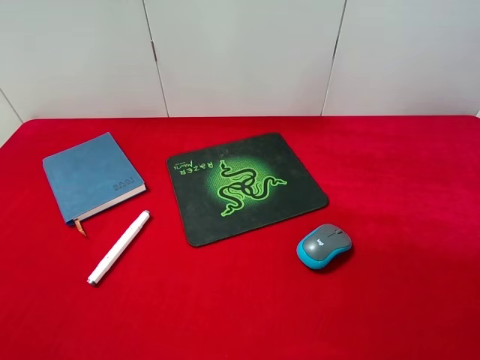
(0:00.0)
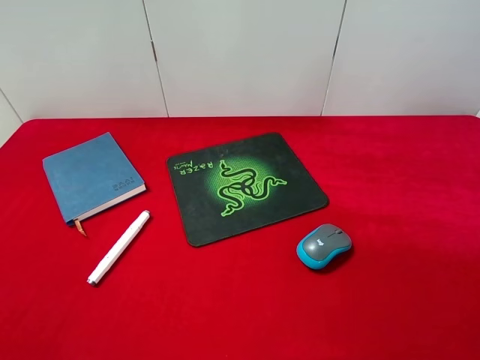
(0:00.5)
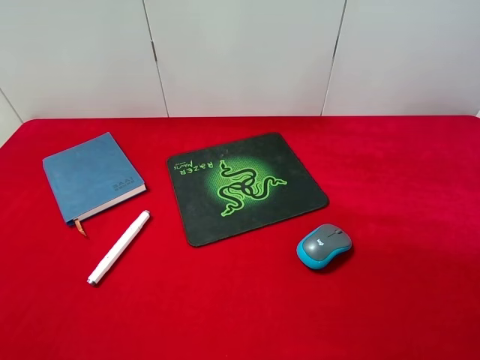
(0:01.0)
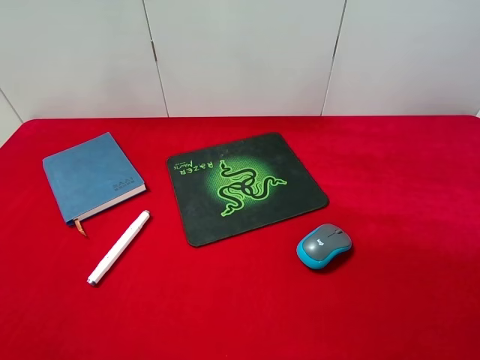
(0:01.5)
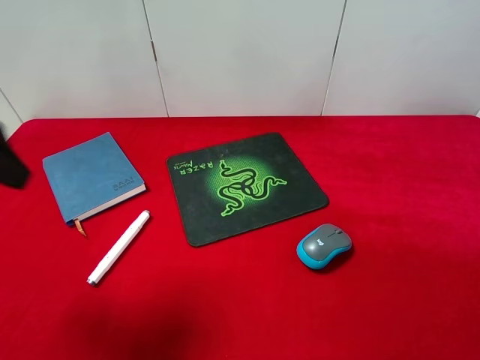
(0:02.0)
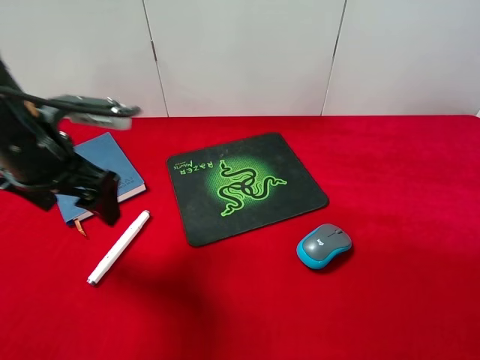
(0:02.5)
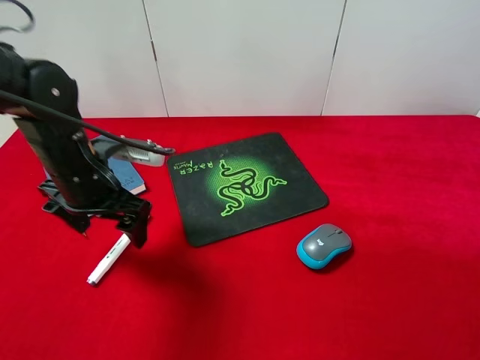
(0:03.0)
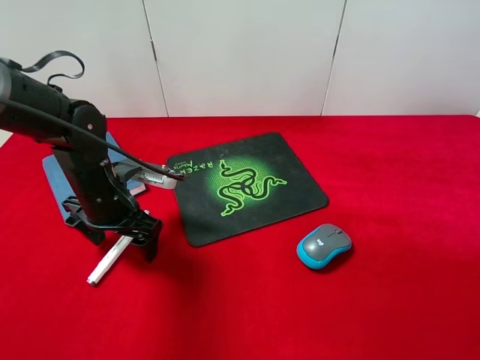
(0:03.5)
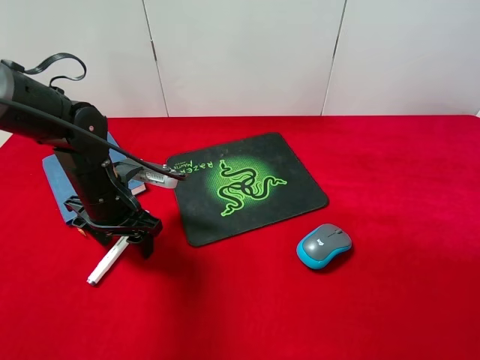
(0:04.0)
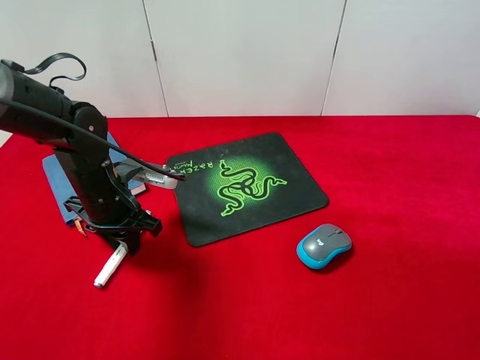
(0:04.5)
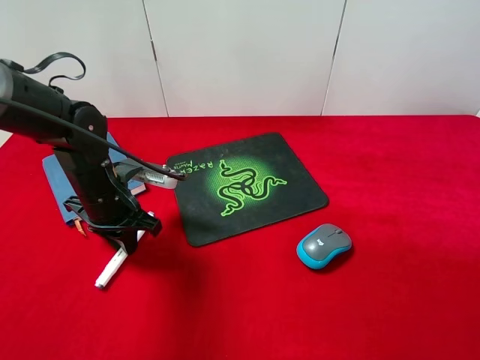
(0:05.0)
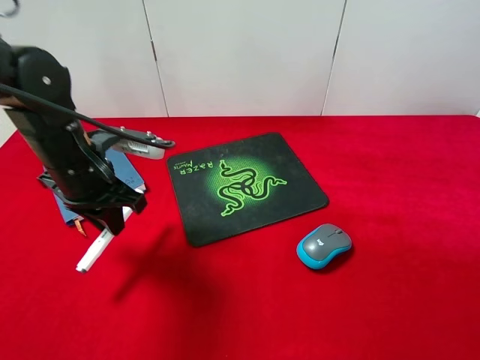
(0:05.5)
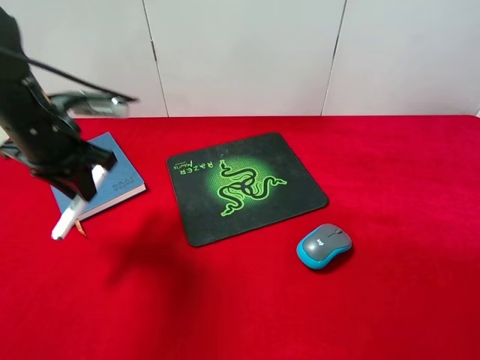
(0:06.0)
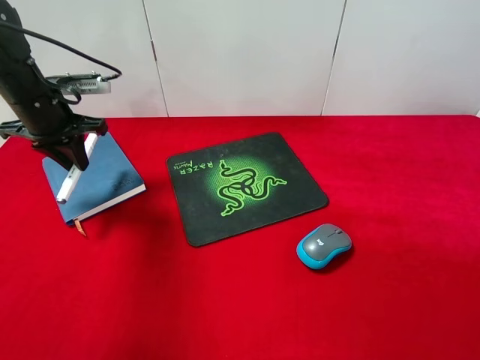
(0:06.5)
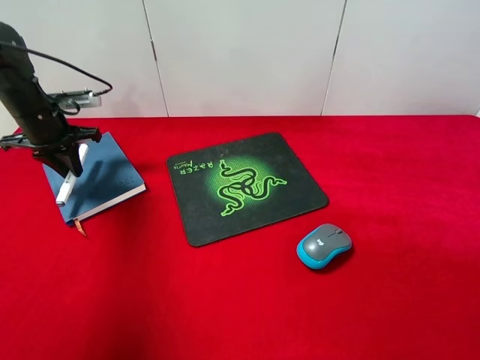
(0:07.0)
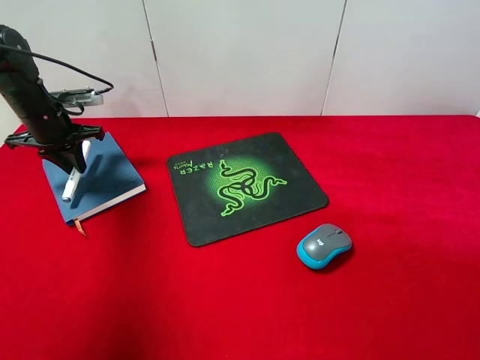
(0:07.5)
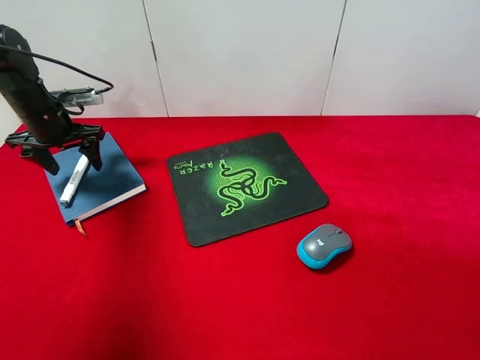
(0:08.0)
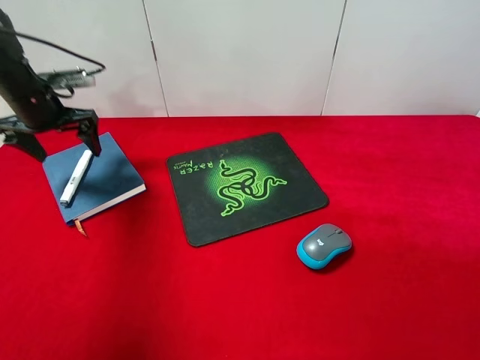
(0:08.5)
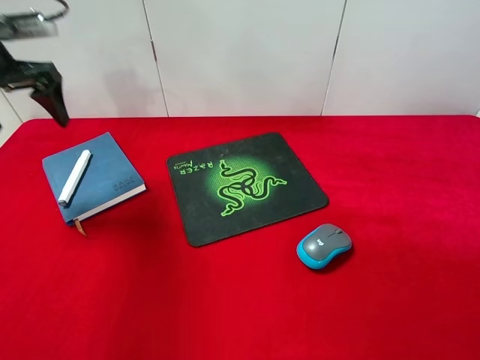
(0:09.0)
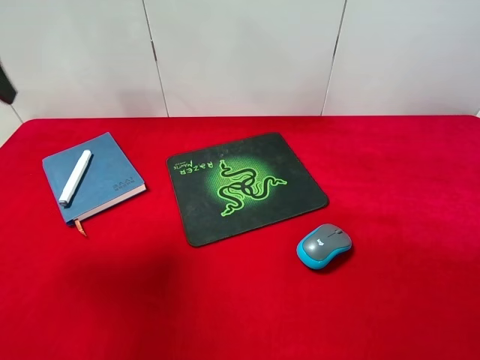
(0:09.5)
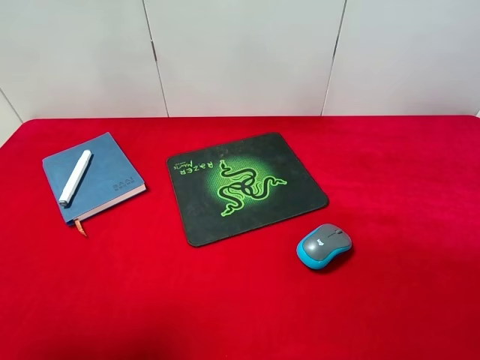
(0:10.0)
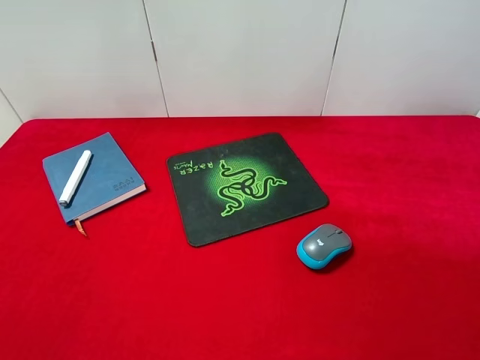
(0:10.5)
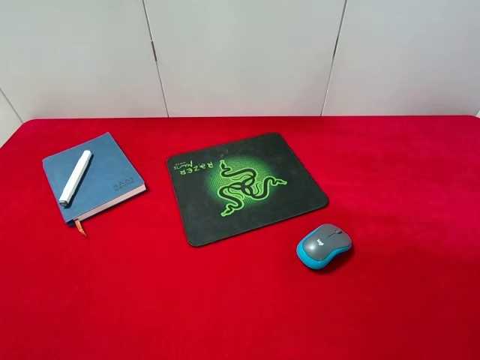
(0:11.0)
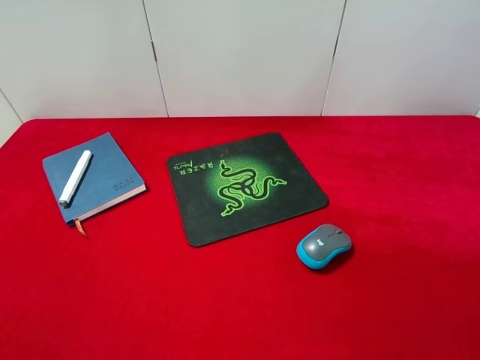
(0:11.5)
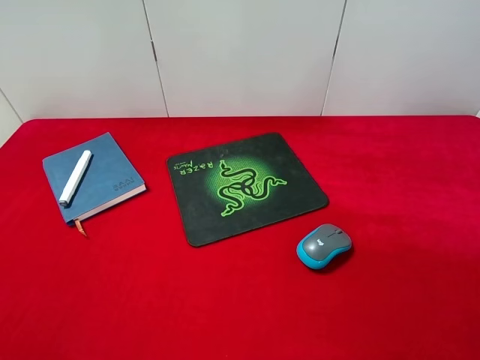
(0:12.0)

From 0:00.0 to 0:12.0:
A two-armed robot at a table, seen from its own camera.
Step, from 0:00.0 to 0:05.0: Pick up the marker pen with left gripper.
Step, from 0:05.5 to 0:08.0: Place the marker pen on the notebook with left gripper.
From 0:00.0 to 0:02.0: The left gripper goes roughly 20 cm forward.
From 0:02.0 to 0:04.0: The left gripper travels downward, forward and to the right by about 25 cm.
From 0:04.0 to 0:06.0: The left gripper goes about 10 cm upward and to the left, and closes its fingers.
From 0:06.0 to 0:08.0: The left gripper goes roughly 15 cm forward, to the left and downward, and opens.
From 0:08.0 to 0:10.0: The left gripper shifts about 35 cm backward and upward.

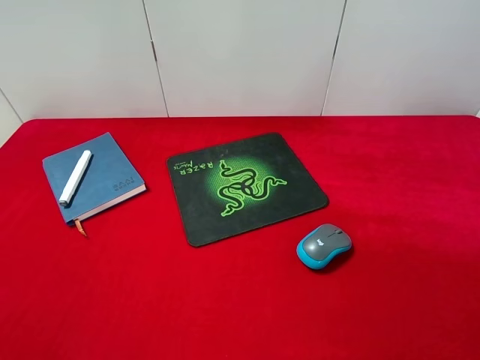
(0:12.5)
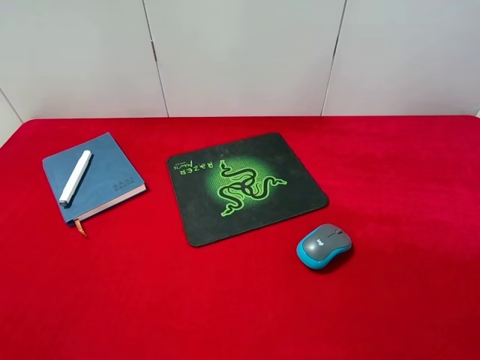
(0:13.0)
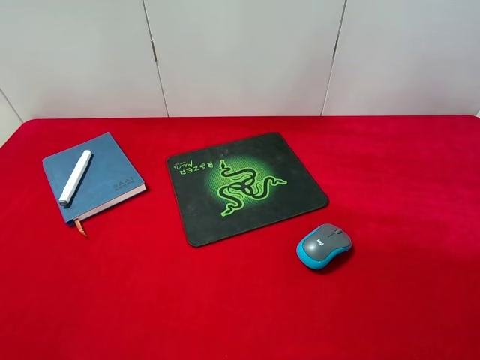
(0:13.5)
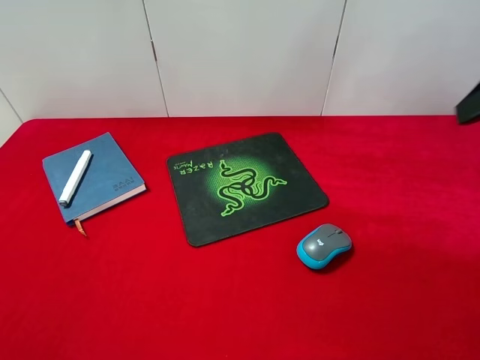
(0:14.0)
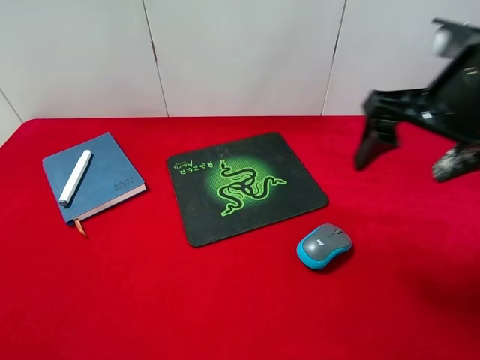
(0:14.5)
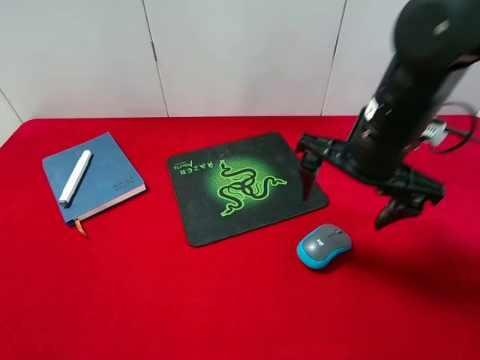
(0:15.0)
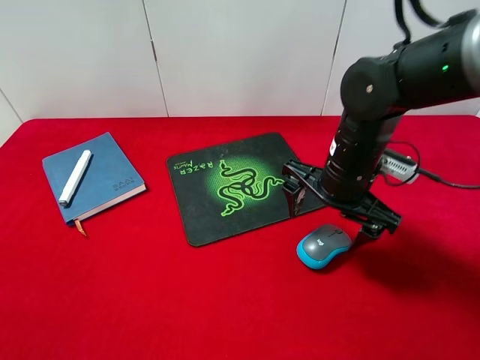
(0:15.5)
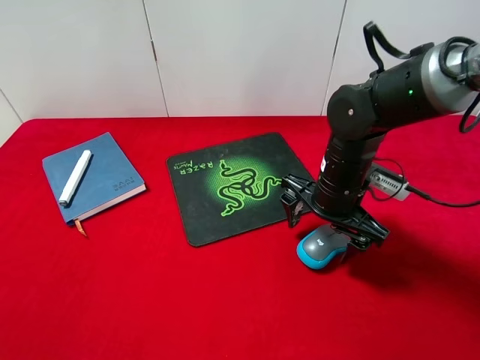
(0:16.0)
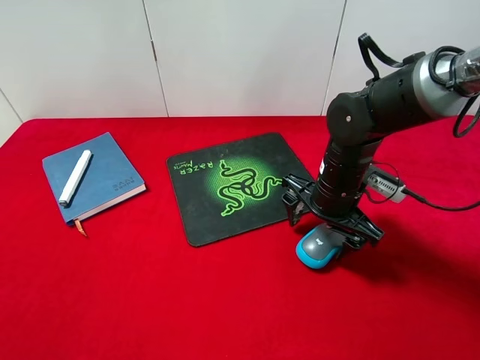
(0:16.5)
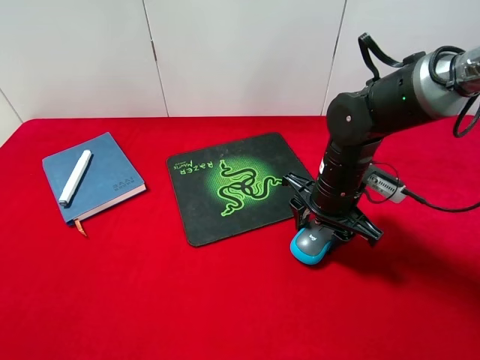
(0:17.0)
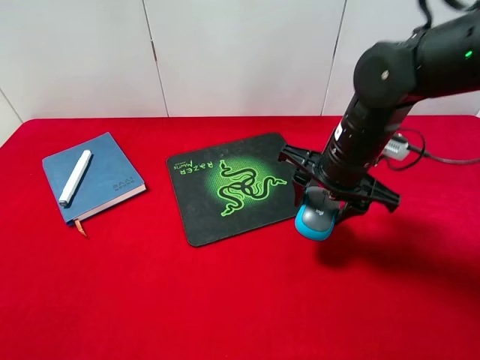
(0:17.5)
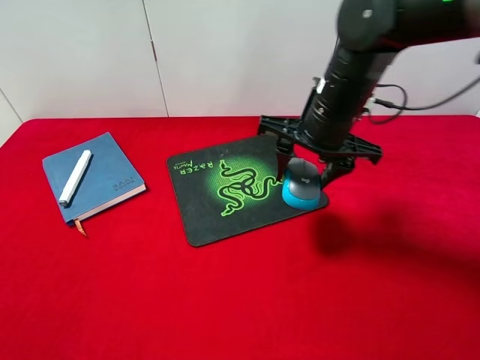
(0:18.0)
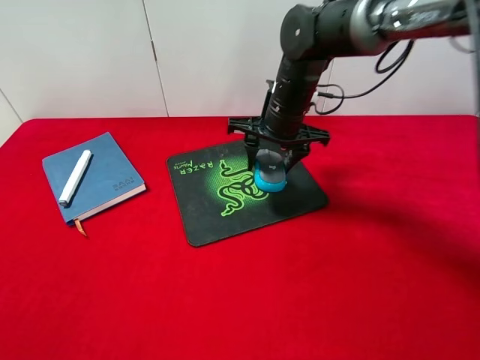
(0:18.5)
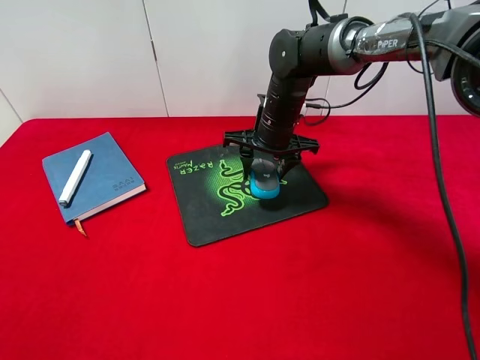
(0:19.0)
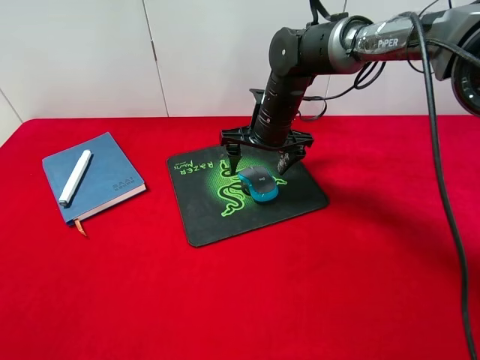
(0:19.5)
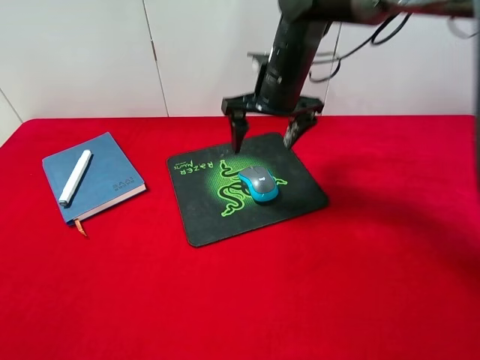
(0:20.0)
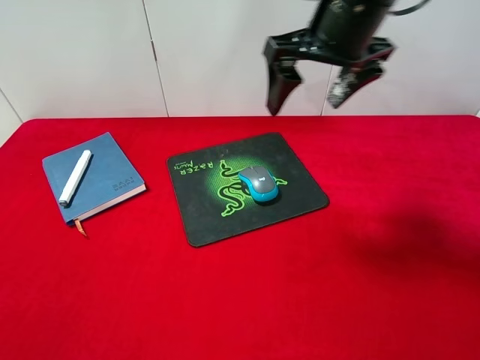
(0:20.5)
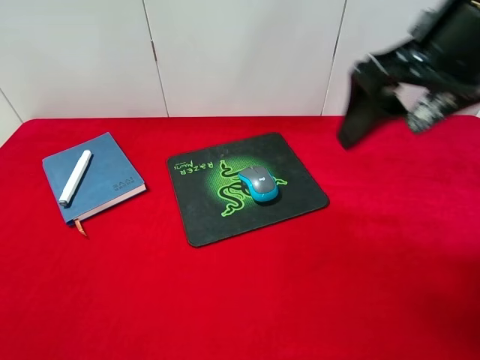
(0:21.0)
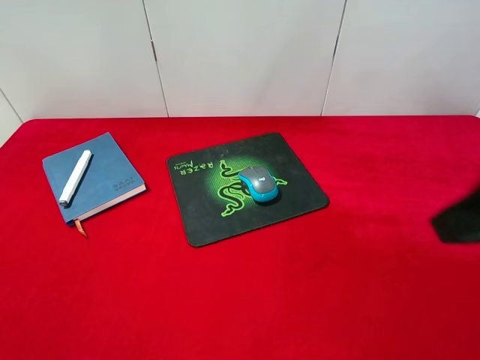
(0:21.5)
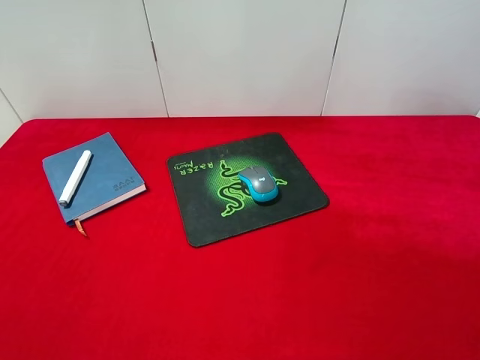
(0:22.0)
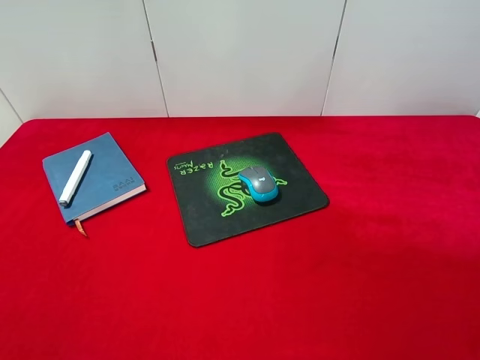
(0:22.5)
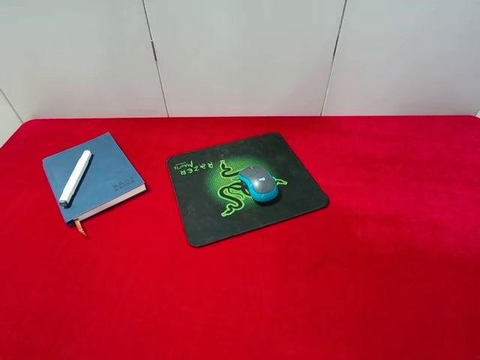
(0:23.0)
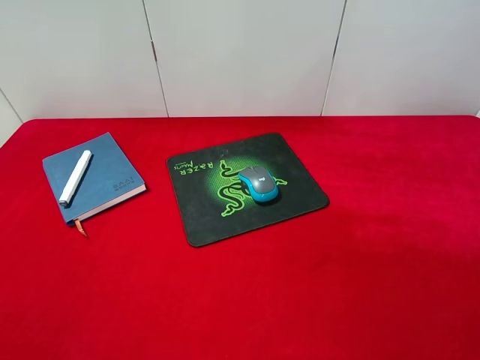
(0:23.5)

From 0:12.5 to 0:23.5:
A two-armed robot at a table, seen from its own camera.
Step, from 0:12.5 to 0:17.5: Pick up the mouse with right gripper.
Step, from 0:18.0 to 0:20.0: Place the mouse on the mouse pad with right gripper.
From 0:12.5 to 0:14.5: The right gripper shifts approximately 25 cm forward and to the left.
From 0:14.5 to 0:16.0: The right gripper moves downward, roughly 15 cm.
From 0:16.0 to 0:18.0: The right gripper heads upward, covering some 10 cm, and closes its fingers.
From 0:18.0 to 0:20.0: The right gripper goes approximately 5 cm forward, and opens its fingers.
From 0:20.0 to 0:21.5: The right gripper shifts roughly 35 cm backward and to the right.
From 0:21.5 to 0:23.5: The right gripper is displaced backward, to the right and downward by about 15 cm.
